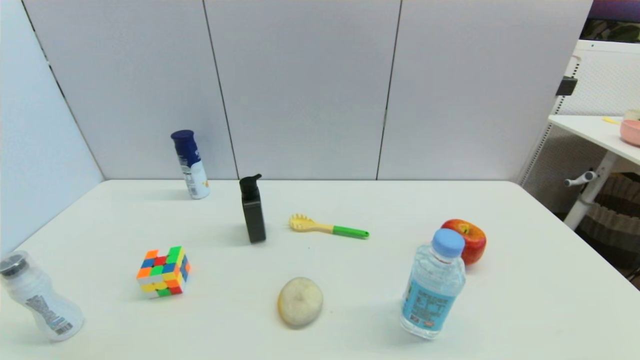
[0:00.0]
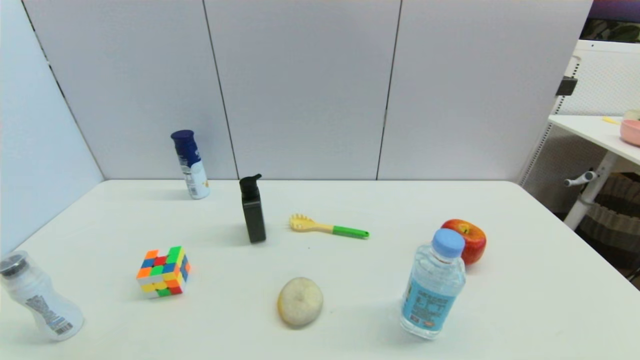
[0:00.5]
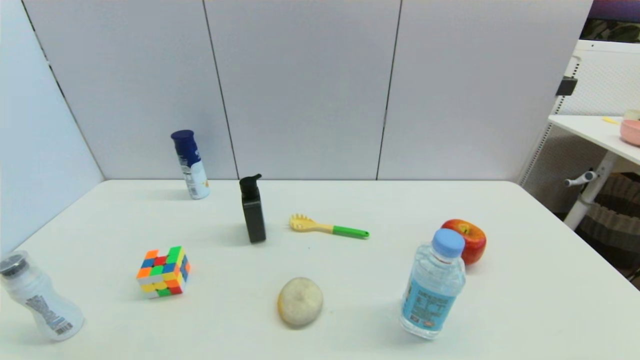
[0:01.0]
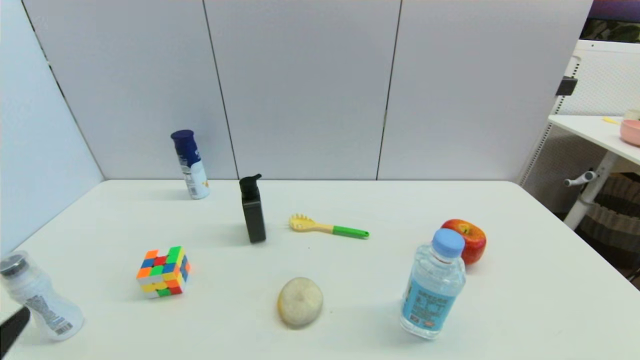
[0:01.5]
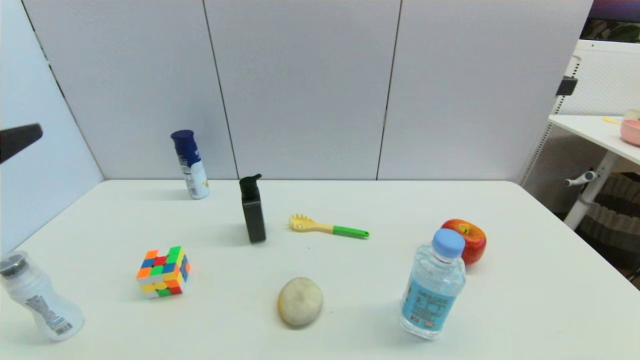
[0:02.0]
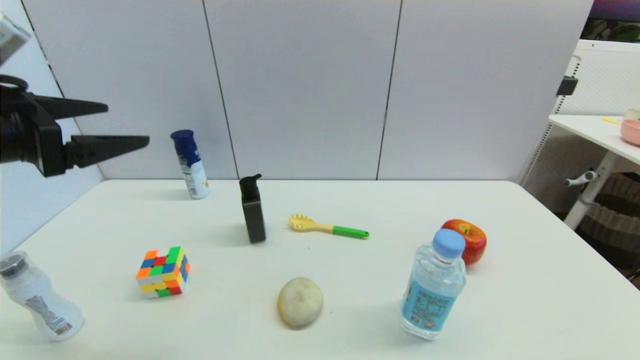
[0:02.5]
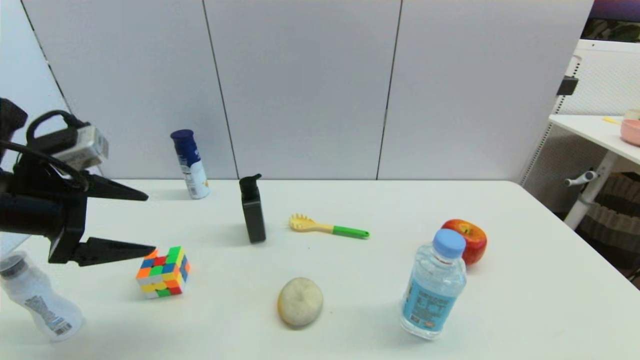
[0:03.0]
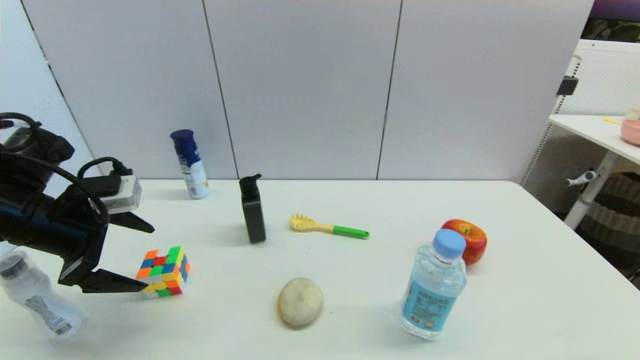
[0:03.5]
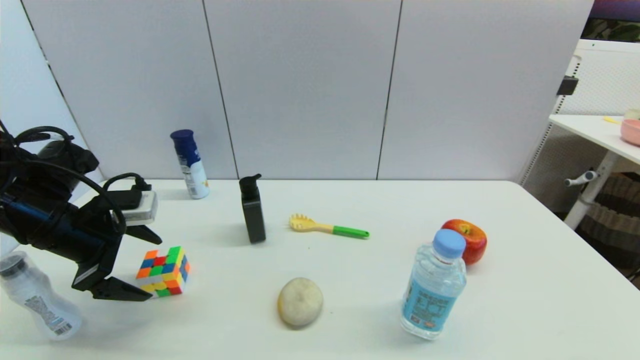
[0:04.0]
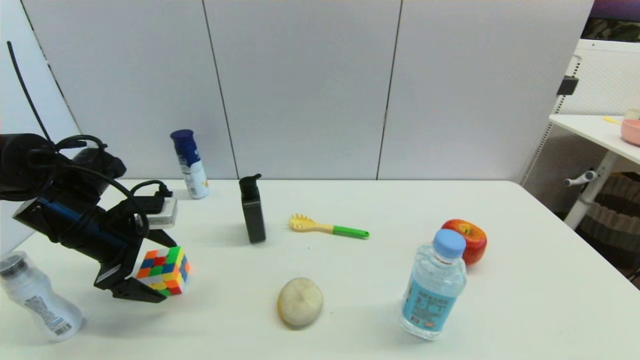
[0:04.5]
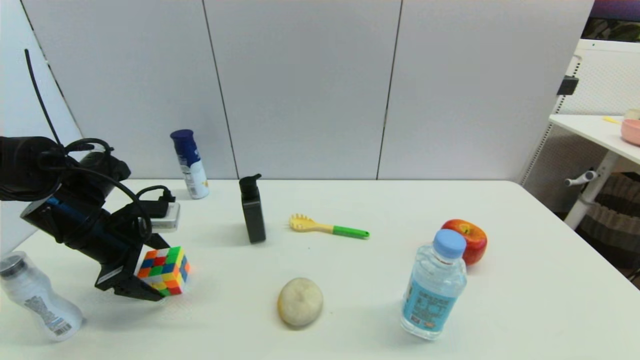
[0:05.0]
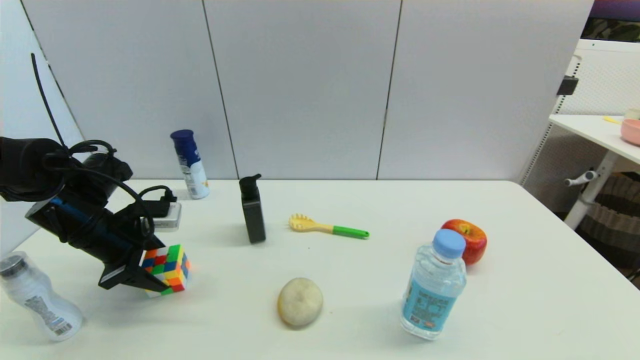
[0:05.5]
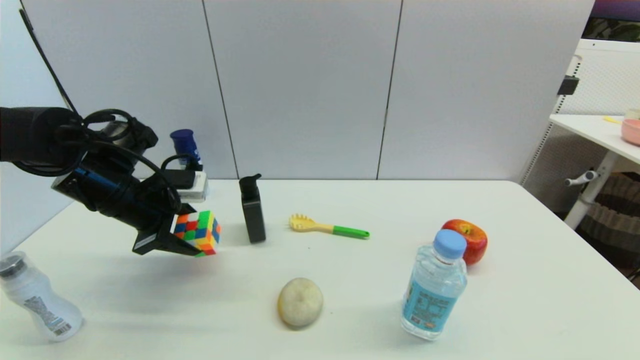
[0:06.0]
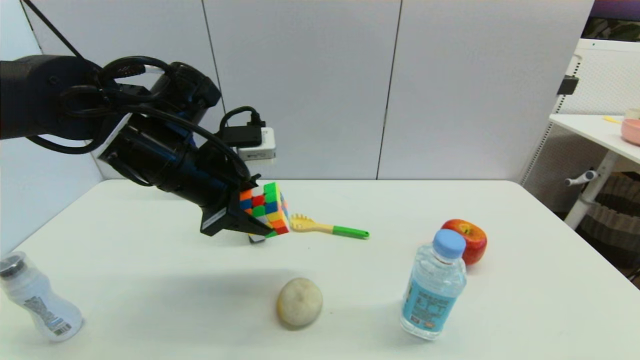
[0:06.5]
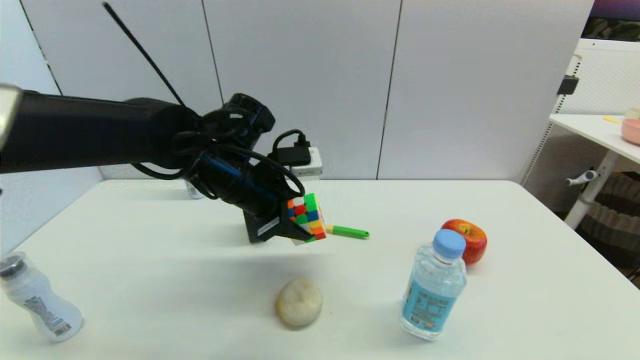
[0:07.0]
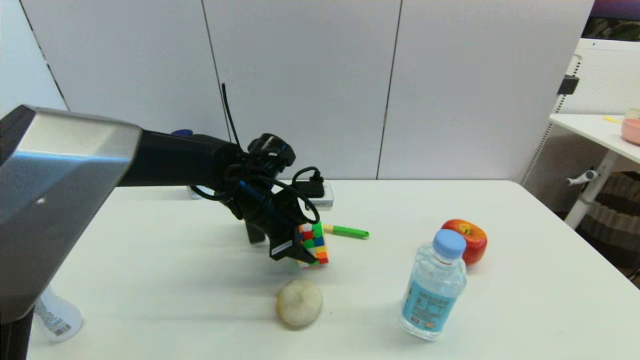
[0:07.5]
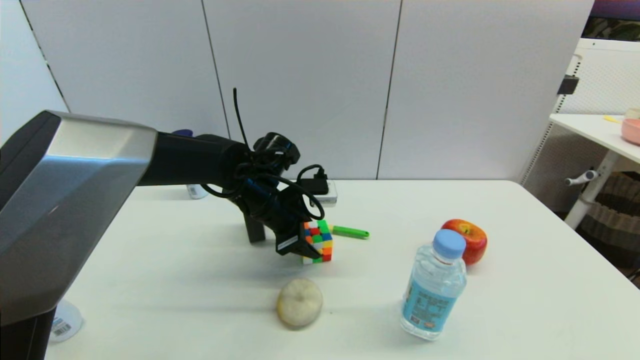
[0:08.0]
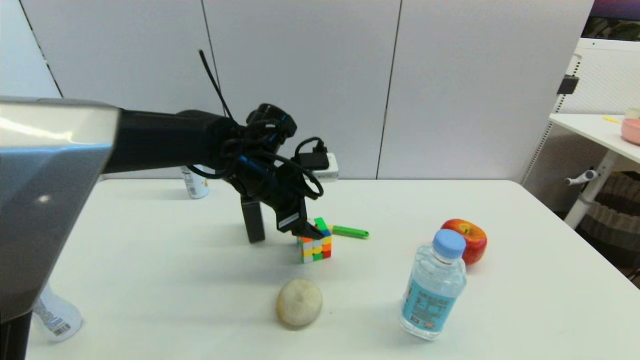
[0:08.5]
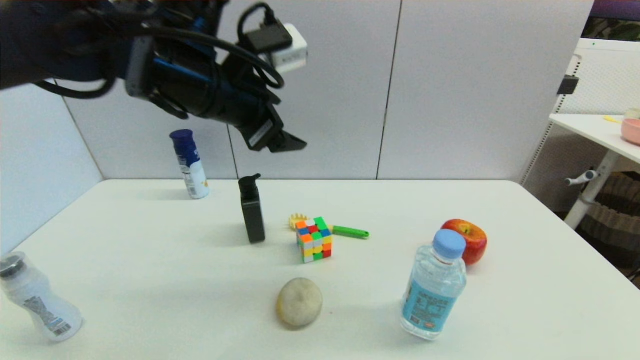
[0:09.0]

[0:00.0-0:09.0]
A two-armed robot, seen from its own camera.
Step, 0:01.5 to 0:05.0: Grasp the magic cube with left gripper.
Step, 0:05.5 to 0:08.5: Place the magic cube on the table with left gripper.
0:02.0 to 0:04.5: The left gripper shifts about 25 cm forward and downward.
0:04.5 to 0:07.0: The left gripper heads to the right, covering about 20 cm, and closes.
0:07.0 to 0:09.0: The left gripper is displaced upward by approximately 15 cm, and opens up.

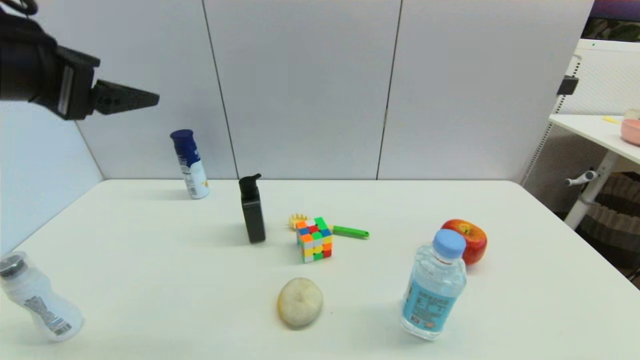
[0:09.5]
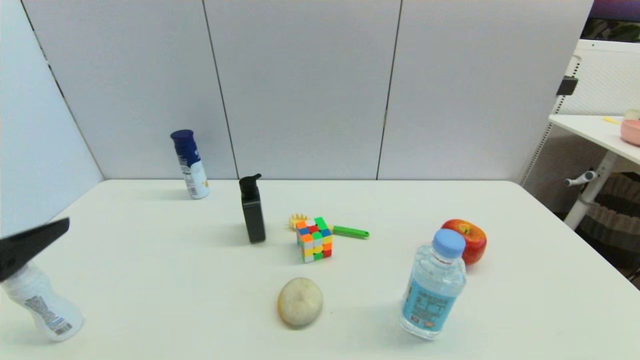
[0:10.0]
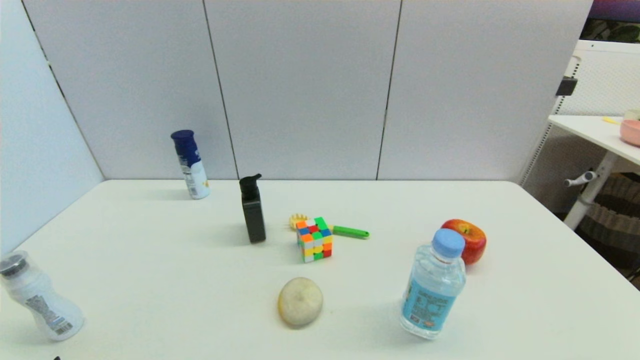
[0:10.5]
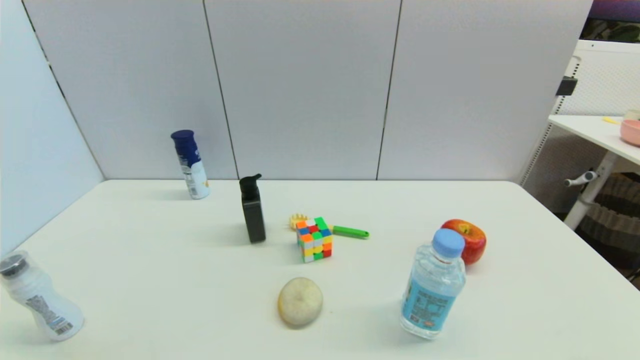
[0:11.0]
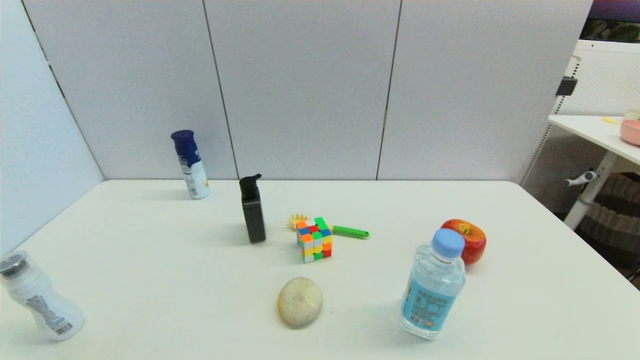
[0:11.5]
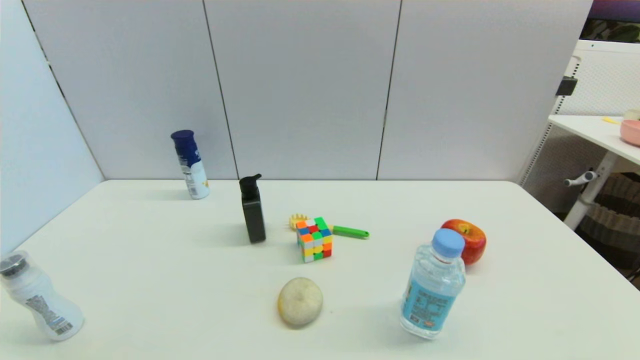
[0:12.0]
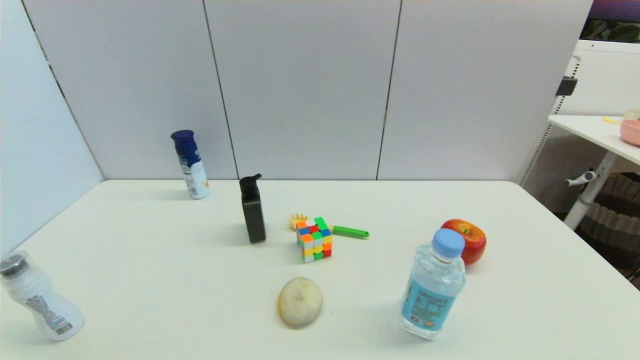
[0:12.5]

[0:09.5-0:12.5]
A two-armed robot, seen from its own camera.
0:09.5 to 0:11.0: The left gripper heads downward and backward, covering some 35 cm.

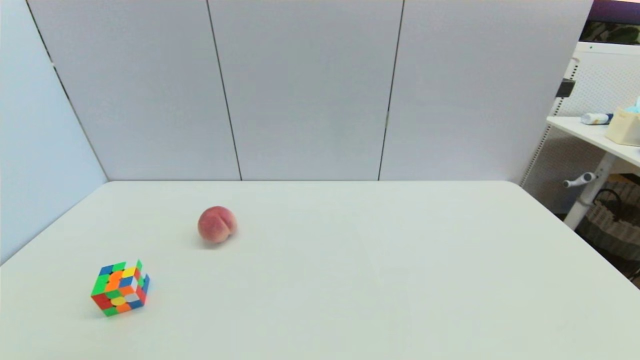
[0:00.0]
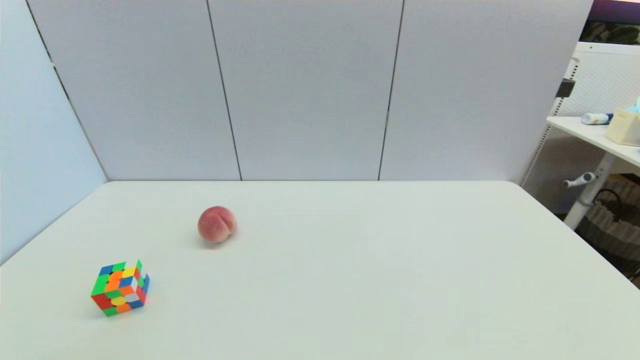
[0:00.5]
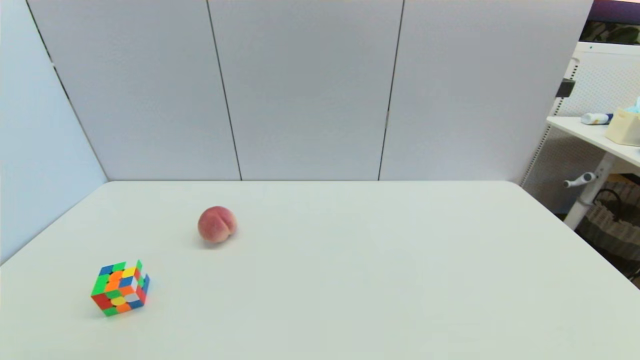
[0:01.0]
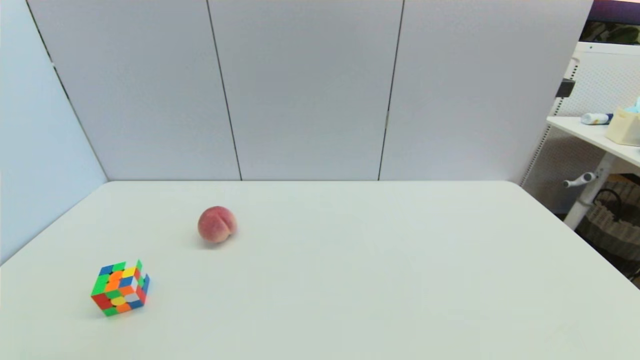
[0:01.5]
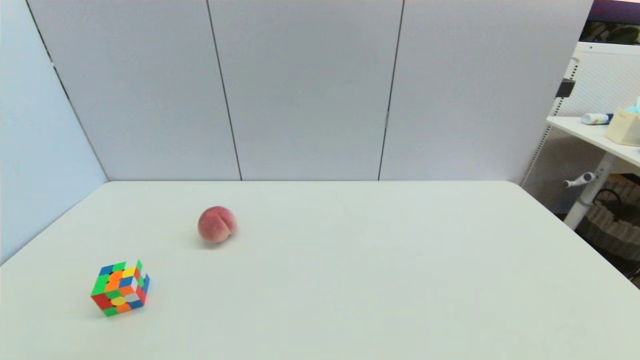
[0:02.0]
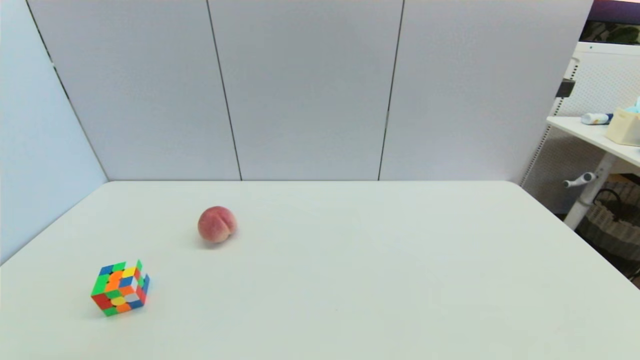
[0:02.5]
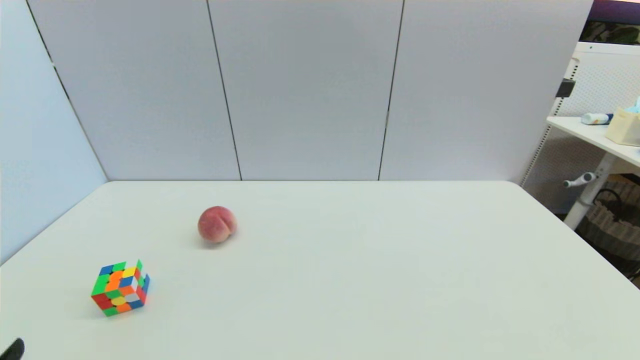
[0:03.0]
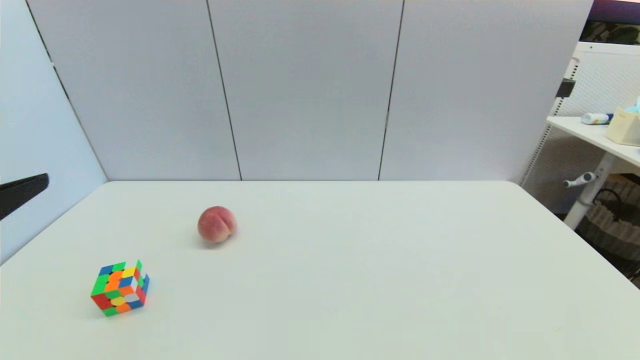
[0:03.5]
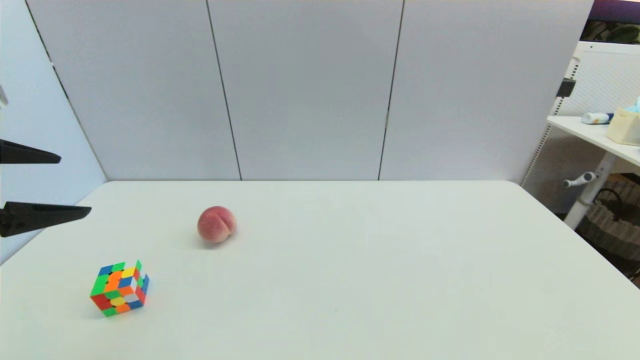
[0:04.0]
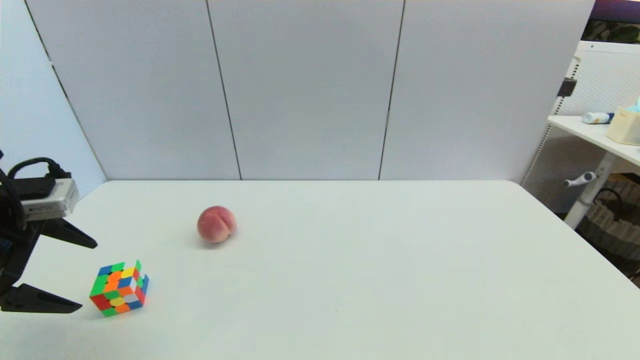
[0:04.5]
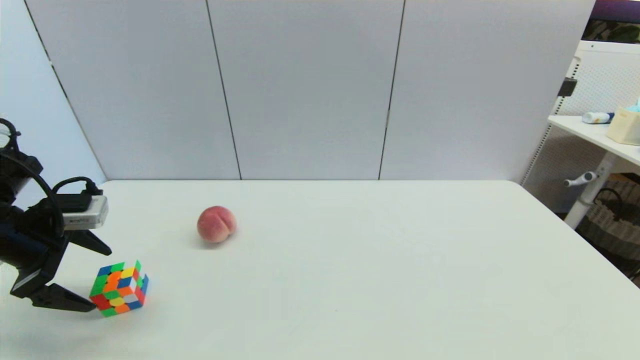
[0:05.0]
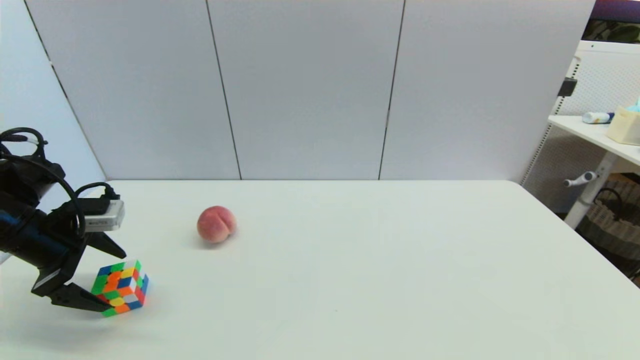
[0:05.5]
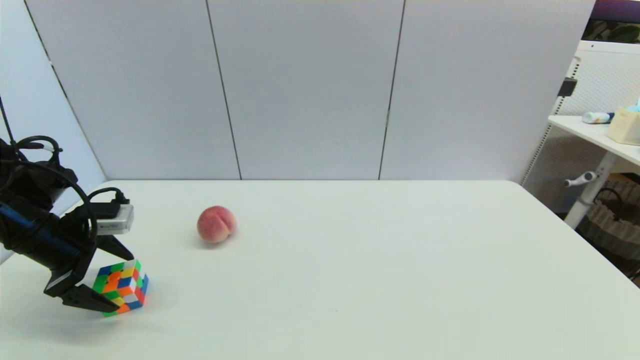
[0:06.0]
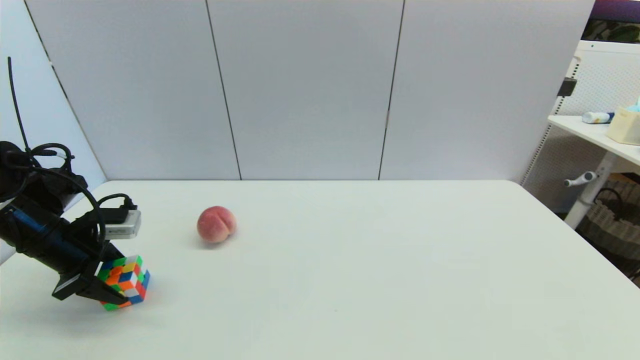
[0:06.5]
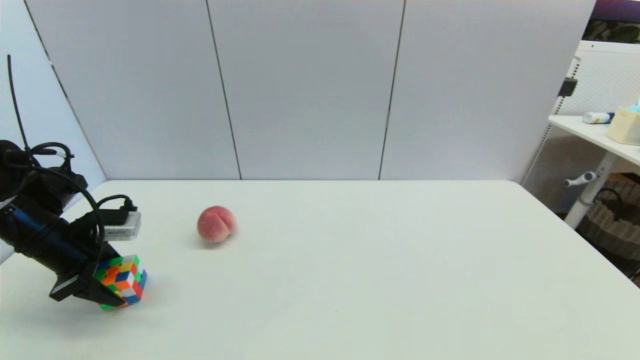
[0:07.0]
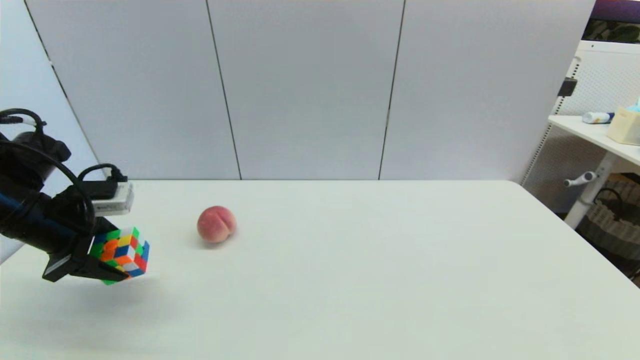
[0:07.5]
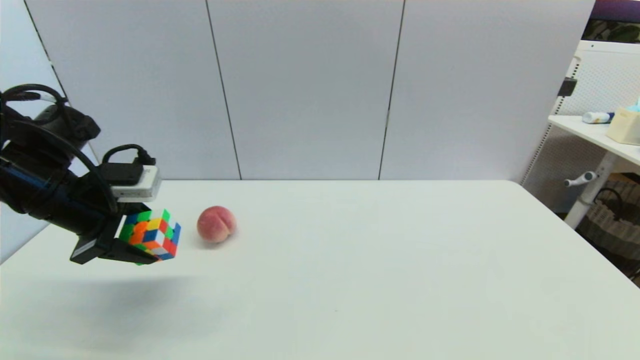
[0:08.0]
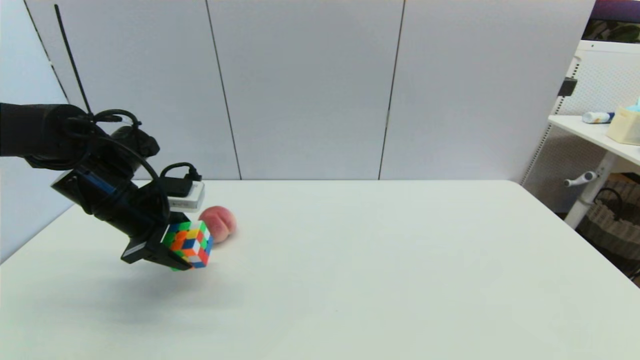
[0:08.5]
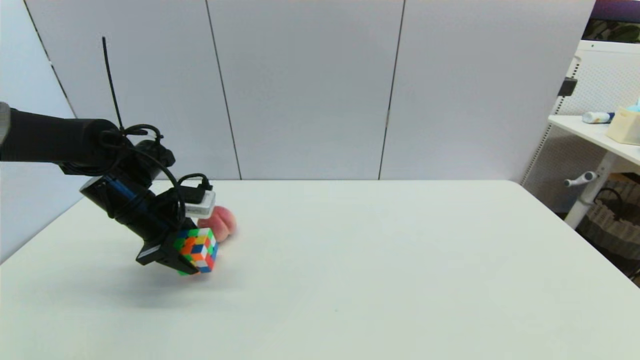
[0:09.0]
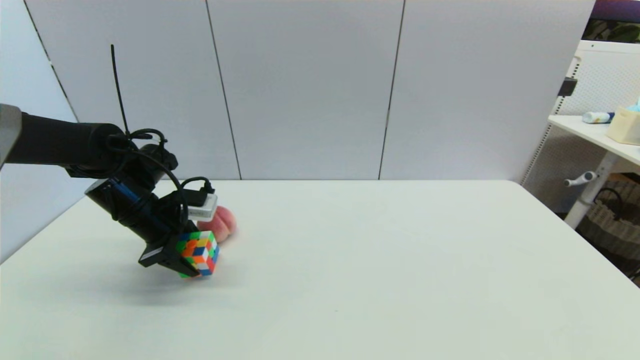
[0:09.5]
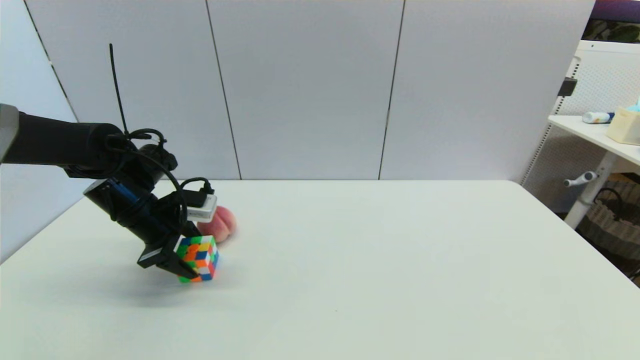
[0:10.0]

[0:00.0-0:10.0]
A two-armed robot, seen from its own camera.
Step, 0:03.0 to 0:06.5: Grasp the magic cube with left gripper.
0:00.0 to 0:02.0: The two grippers keep their place.
0:02.0 to 0:04.0: The left gripper heads upward and forward, covering about 30 cm.
0:04.0 to 0:06.0: The left gripper is displaced downward and forward by some 20 cm.
0:06.0 to 0:08.0: The left gripper goes some 10 cm to the right and upward, and closes.
0:08.0 to 0:10.0: The left gripper shifts approximately 10 cm downward and forward.
